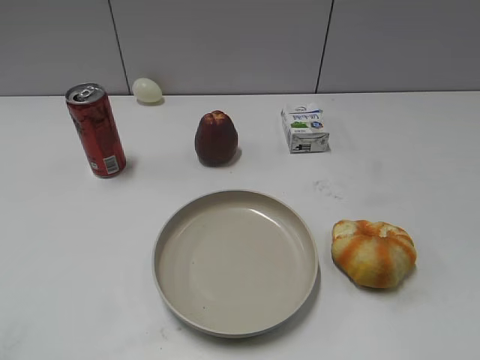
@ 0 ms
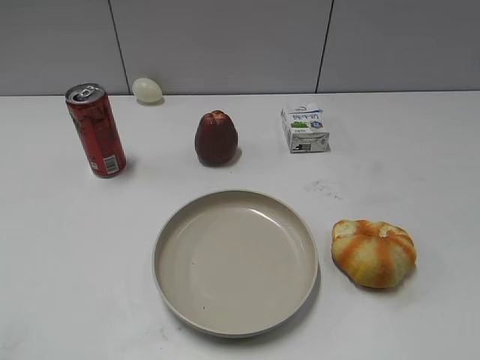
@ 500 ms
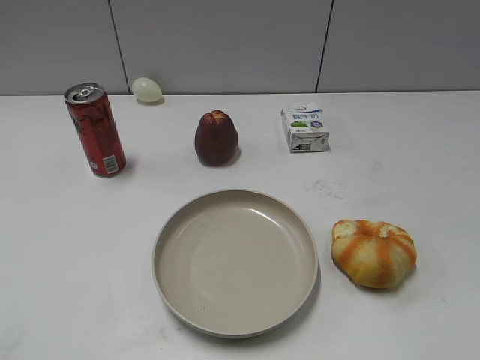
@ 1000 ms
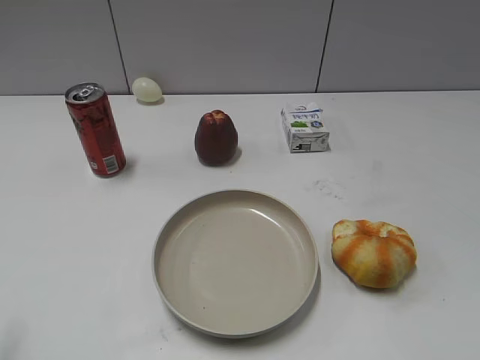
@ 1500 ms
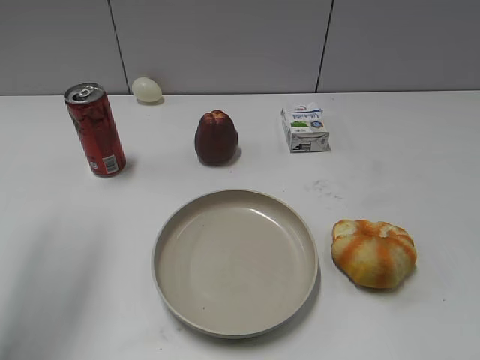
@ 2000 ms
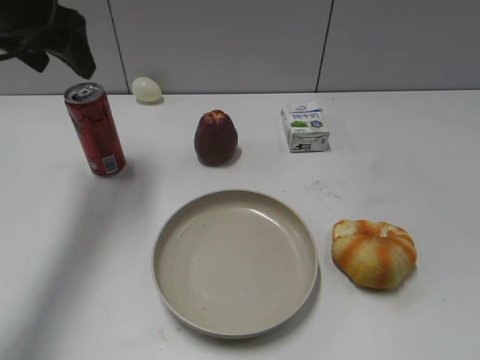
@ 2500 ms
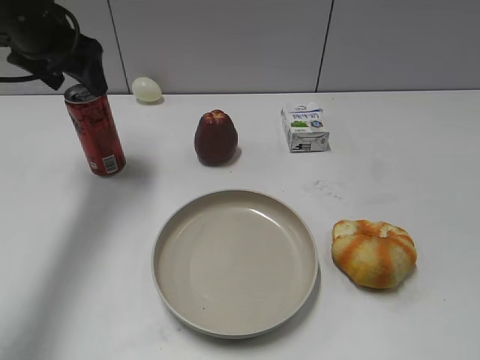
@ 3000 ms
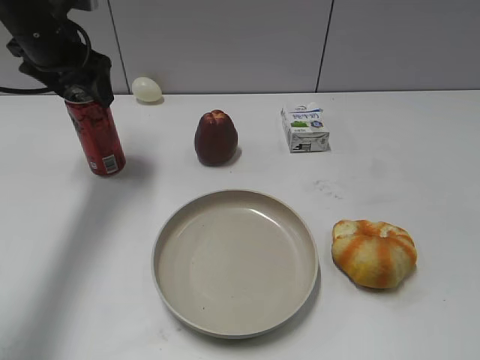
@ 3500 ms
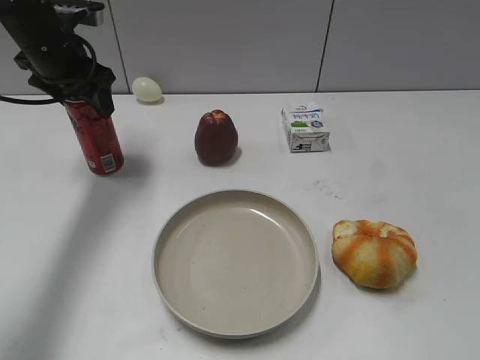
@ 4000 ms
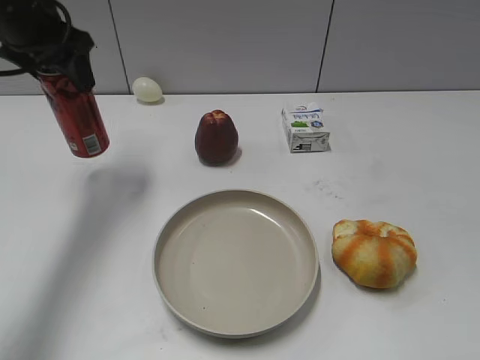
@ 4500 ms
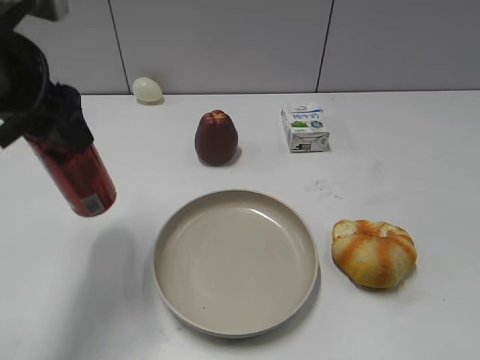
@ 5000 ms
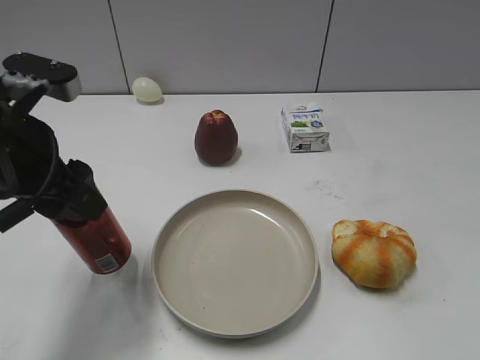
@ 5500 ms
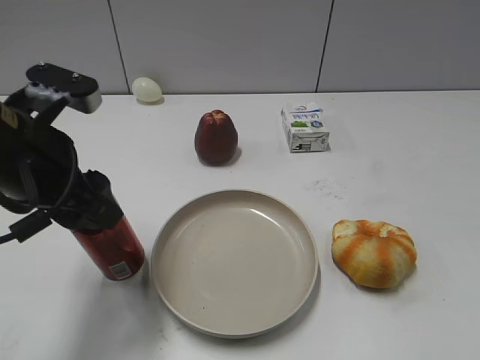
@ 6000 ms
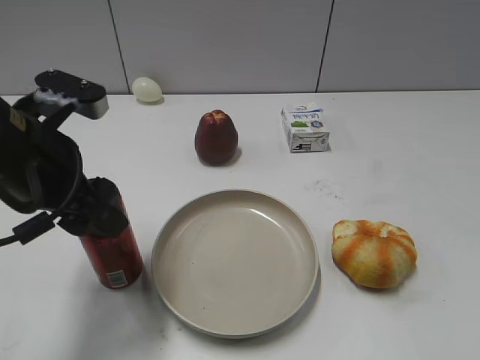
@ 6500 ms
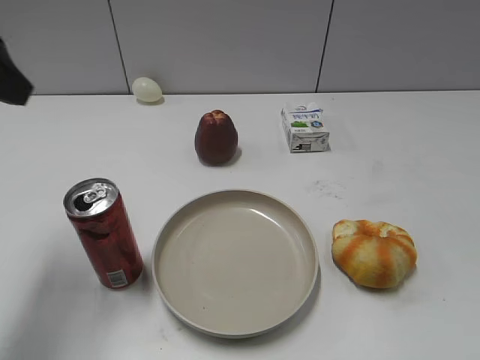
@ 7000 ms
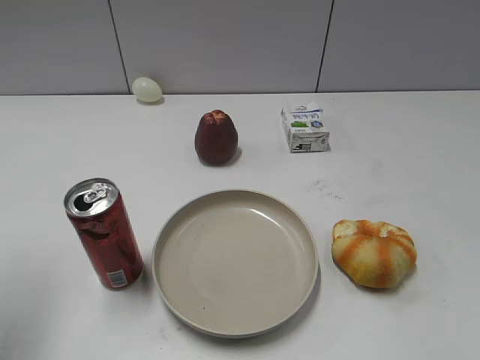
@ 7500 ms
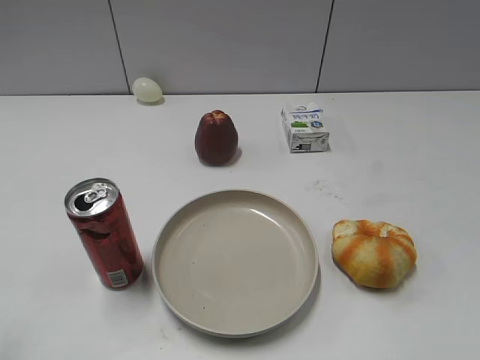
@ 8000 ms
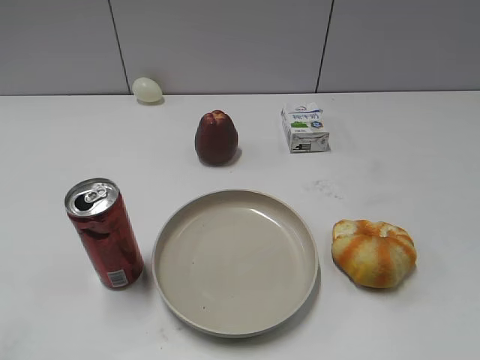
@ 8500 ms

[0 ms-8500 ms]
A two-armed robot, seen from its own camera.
Step, 1500 ms to 4000 ms: Grasp the cola with left gripper.
Step, 4500 ms to 6500 ms: Place the cola on the table with left gripper.
2000 ms to 4000 ms: The left gripper goes about 25 cm forward and downward, and opens and closes again.
4000 ms to 6500 ms: The left gripper moves backward, about 20 cm, and opens its fingers.
6500 ms to 8500 ms: The left gripper goes roughly 25 cm backward and to the left, and closes.
